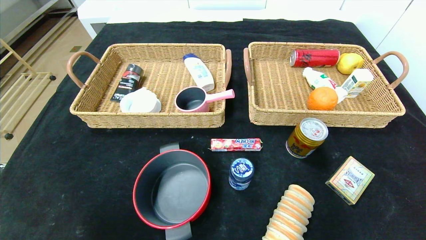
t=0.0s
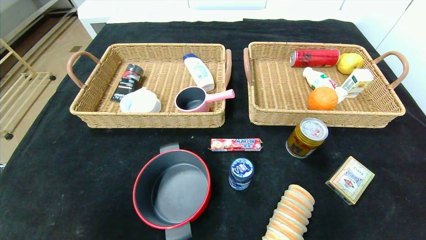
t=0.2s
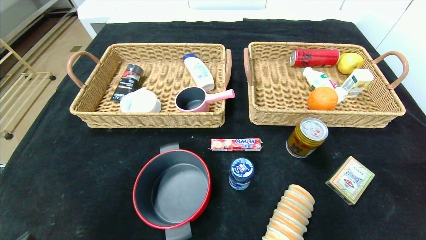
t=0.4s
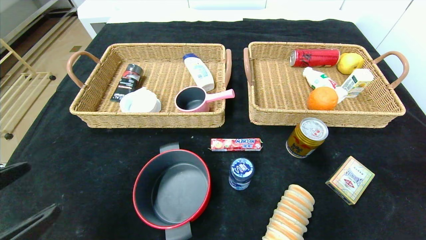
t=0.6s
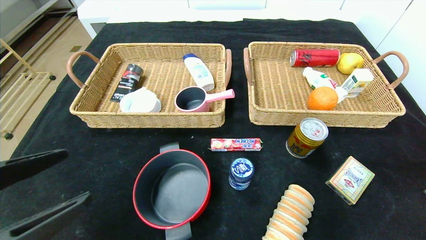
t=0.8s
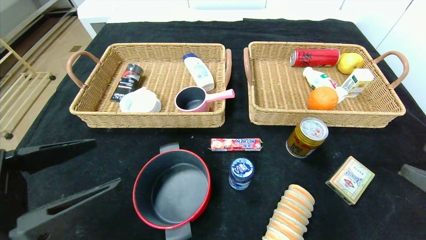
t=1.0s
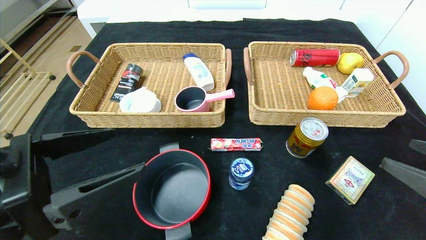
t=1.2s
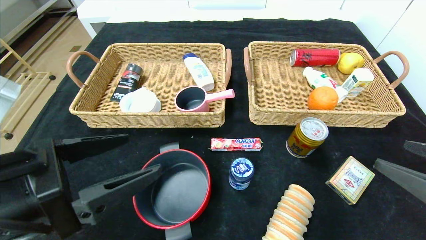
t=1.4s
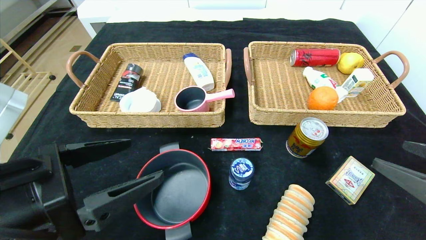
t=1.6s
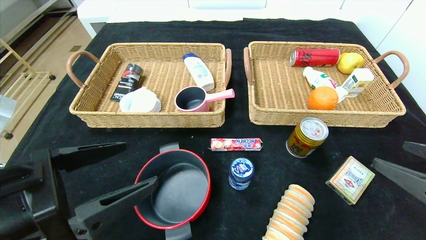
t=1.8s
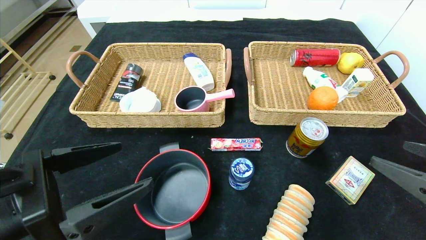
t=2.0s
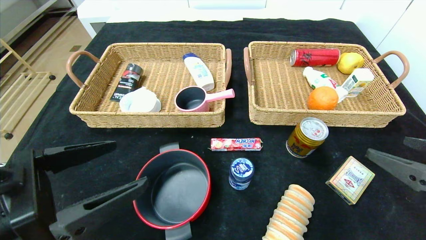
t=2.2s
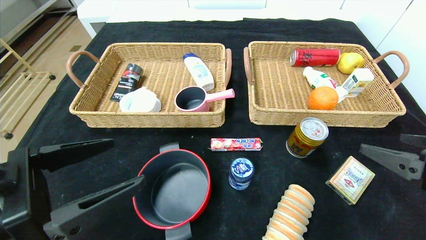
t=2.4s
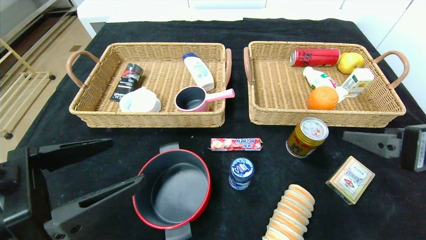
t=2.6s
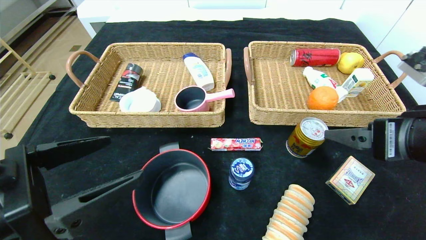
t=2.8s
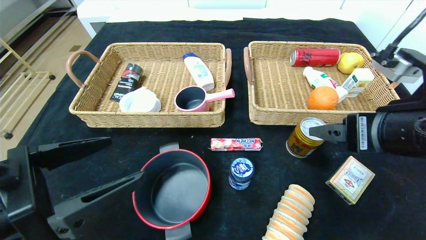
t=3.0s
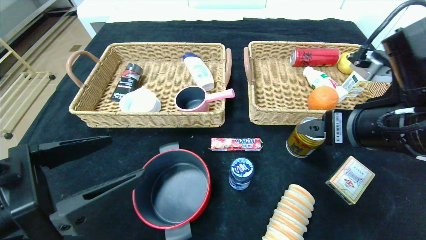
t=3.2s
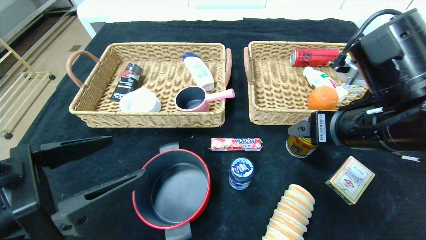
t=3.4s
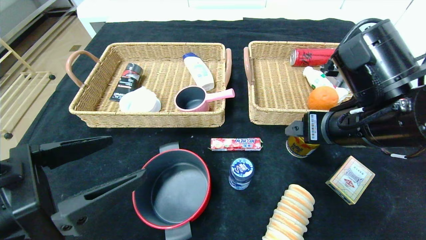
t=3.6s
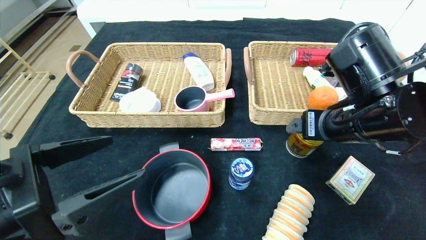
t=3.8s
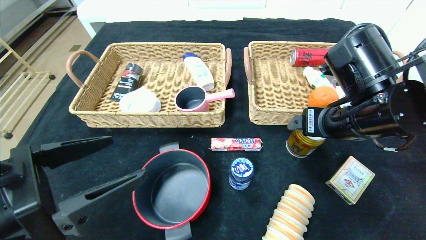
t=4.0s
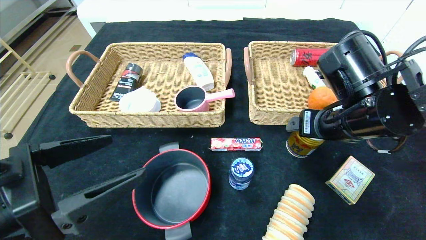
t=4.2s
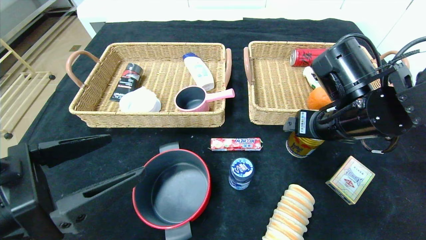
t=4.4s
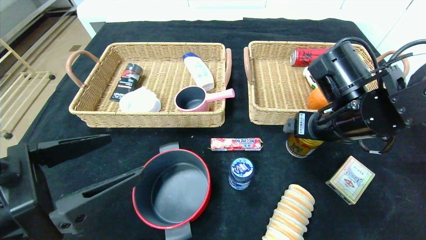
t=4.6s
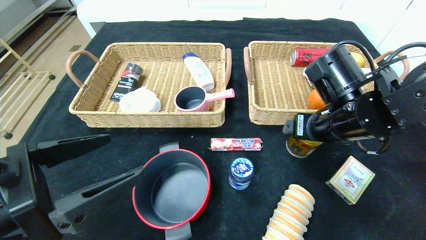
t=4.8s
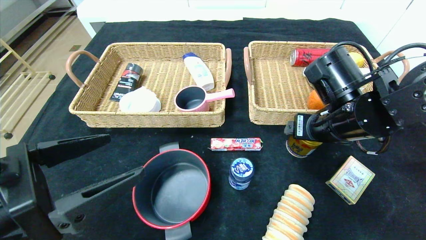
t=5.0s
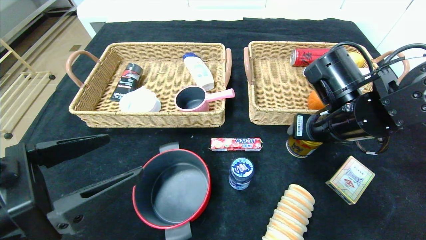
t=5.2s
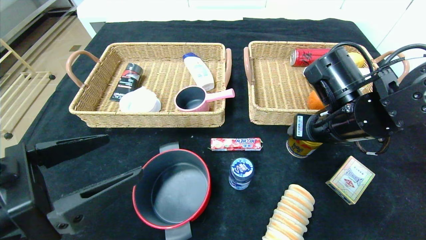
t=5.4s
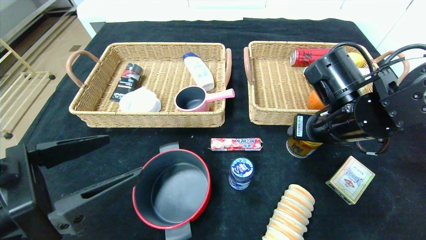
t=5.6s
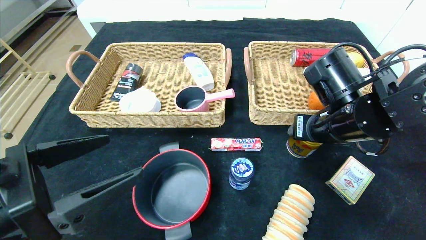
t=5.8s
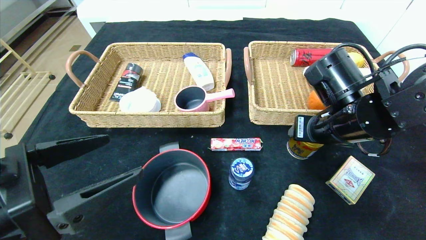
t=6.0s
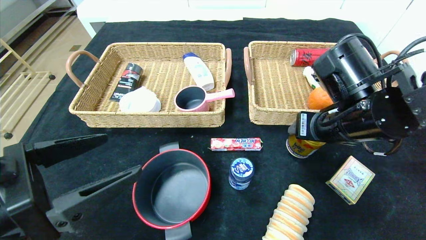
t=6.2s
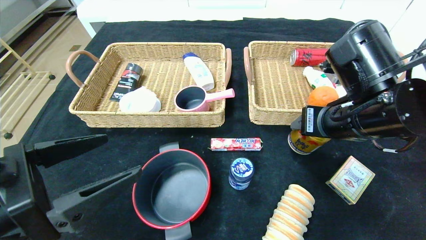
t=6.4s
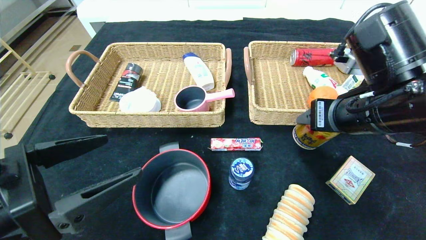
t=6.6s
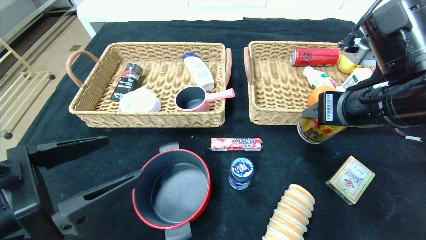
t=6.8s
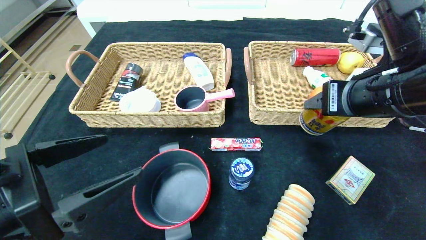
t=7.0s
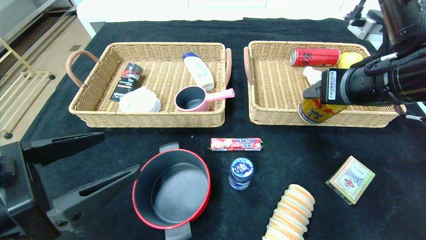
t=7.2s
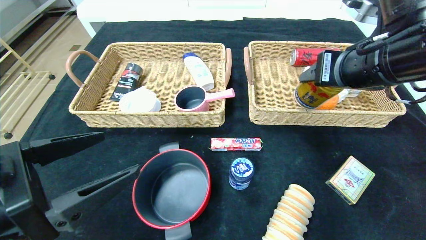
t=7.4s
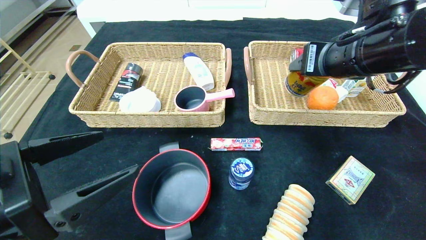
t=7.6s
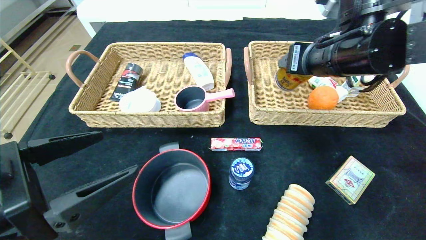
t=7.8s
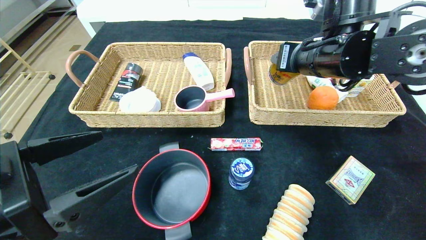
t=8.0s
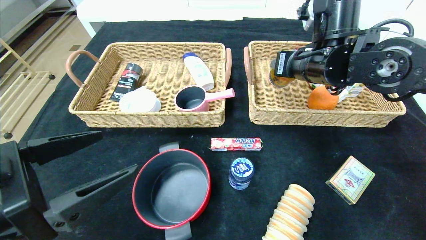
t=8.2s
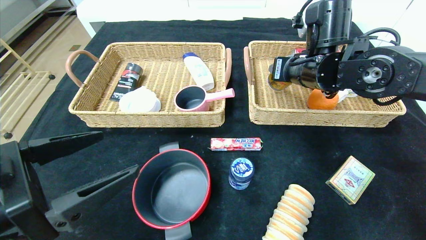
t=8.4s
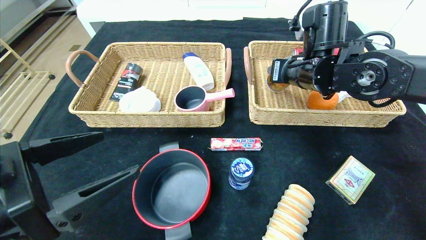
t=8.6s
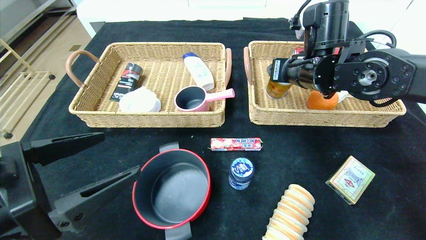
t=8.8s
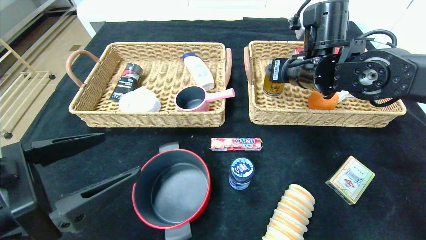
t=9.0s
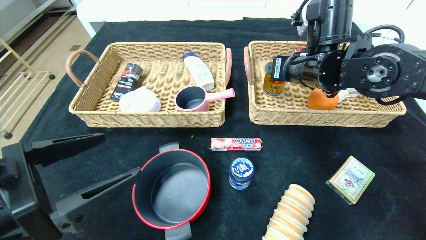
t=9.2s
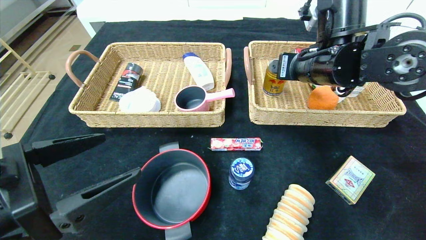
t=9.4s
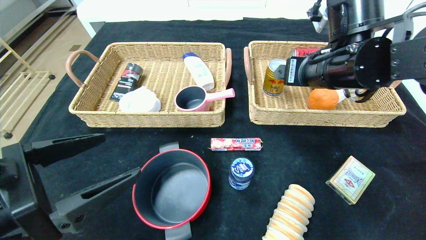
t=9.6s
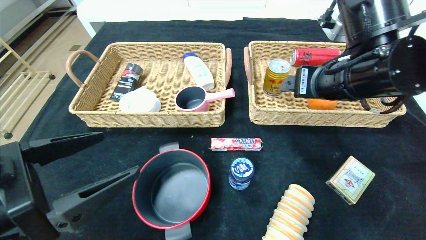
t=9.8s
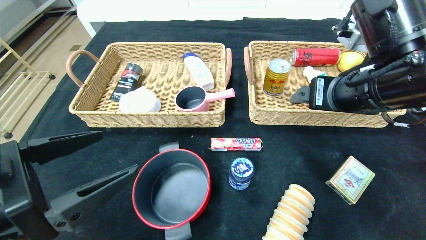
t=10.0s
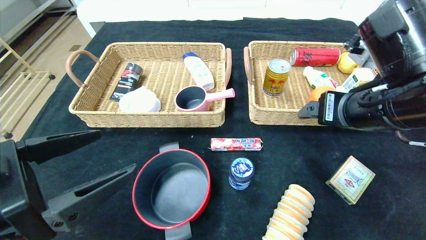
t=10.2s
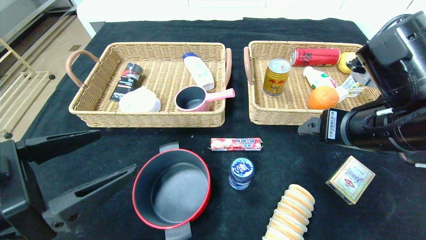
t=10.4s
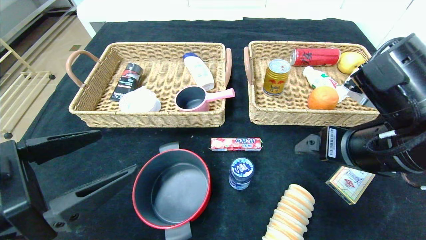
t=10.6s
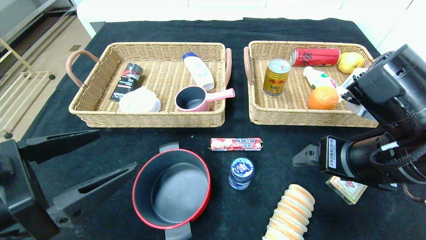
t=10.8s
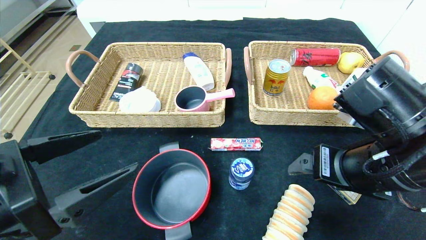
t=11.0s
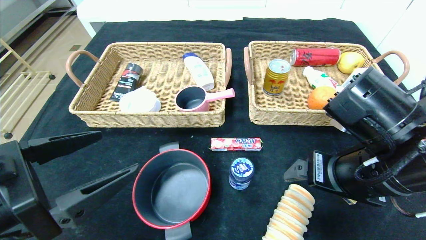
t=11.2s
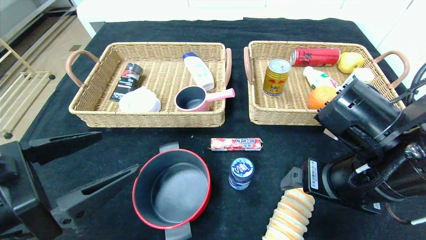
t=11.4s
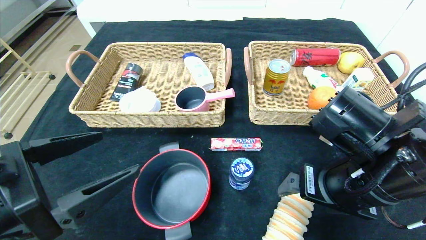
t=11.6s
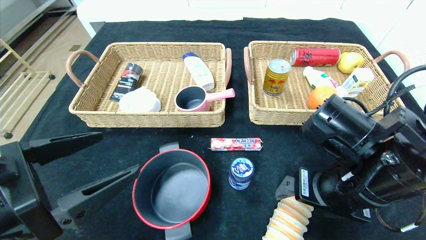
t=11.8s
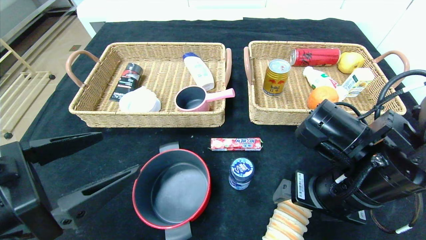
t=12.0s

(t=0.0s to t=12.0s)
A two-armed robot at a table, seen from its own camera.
Step, t=0.0s - t=8.8s: Grasp the Red Bull and put it in the right basket.
t=0.0s - t=1.6s: The left gripper is displaced forward, upward and to the right by some 20 cm; the right gripper travels forward and upward by approximately 15 cm.
t=1.6s - t=3.0s: The right gripper is displaced to the left, forward and upward by approximately 15 cm.
t=3.0s - t=4.4s: The right gripper is displaced forward by about 10 cm.
t=4.4s - t=6.0s: The right gripper closes.
t=6.0s - t=7.6s: The right gripper goes about 10 cm upward.
t=7.6s - t=9.0s: The right gripper is displaced forward by some 10 cm.
t=9.0s - t=10.4s: The right gripper shifts some 15 cm backward.
t=10.4s - t=12.0s: The right gripper shifts roughly 5 cm downward.

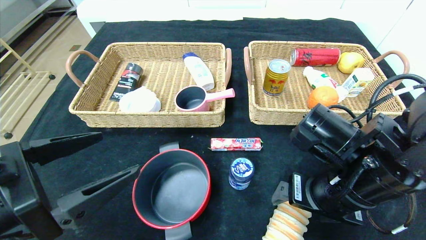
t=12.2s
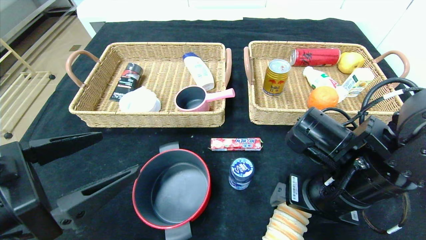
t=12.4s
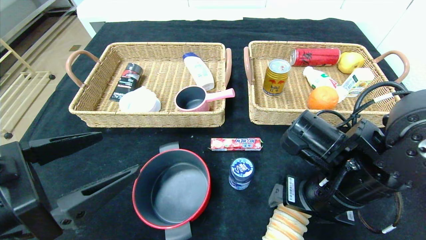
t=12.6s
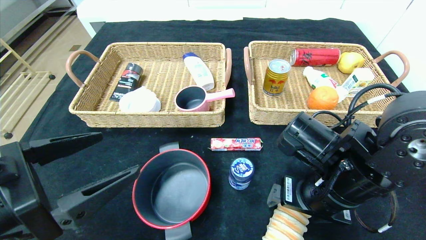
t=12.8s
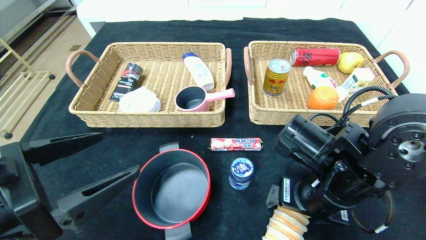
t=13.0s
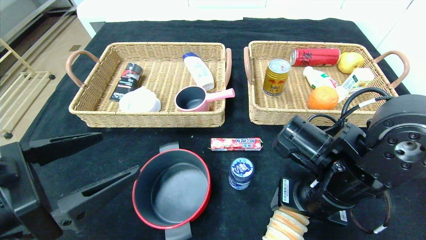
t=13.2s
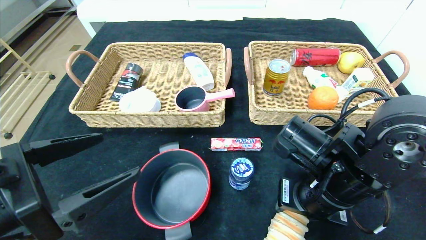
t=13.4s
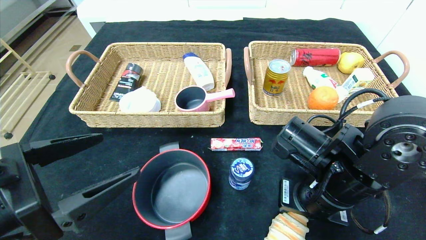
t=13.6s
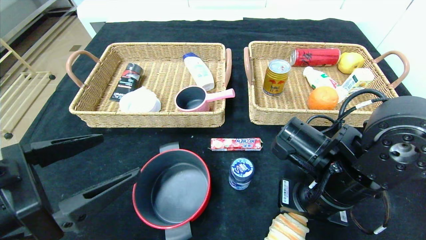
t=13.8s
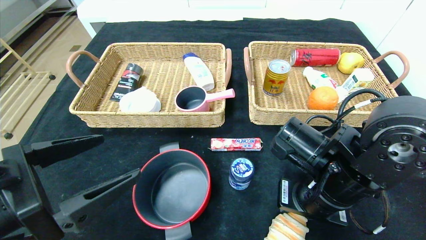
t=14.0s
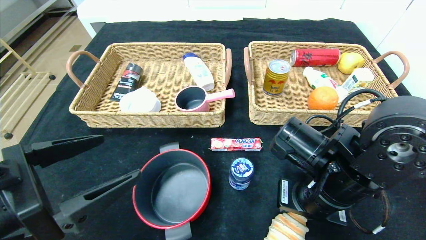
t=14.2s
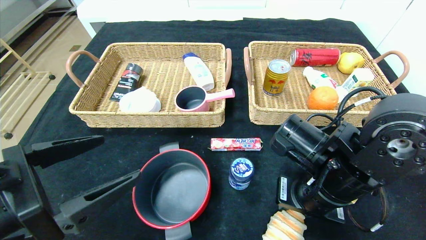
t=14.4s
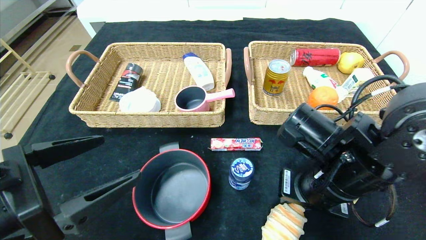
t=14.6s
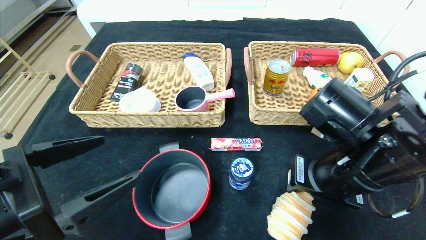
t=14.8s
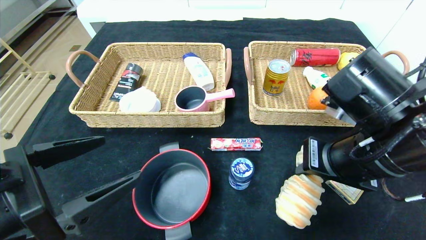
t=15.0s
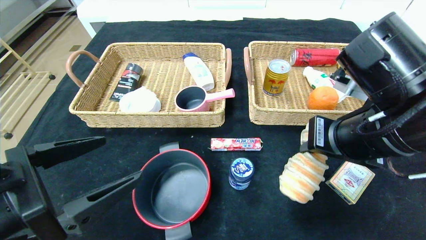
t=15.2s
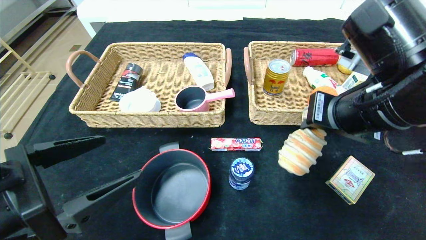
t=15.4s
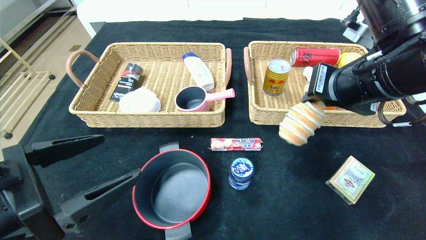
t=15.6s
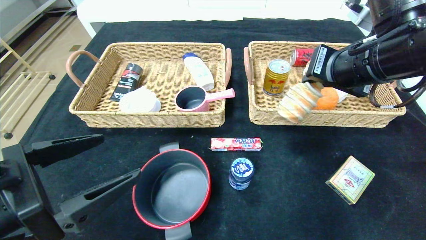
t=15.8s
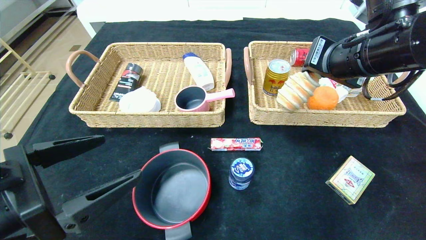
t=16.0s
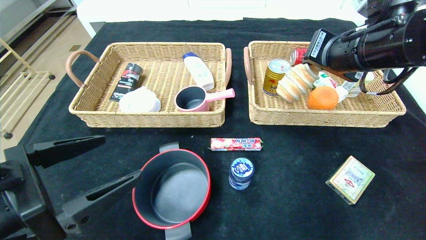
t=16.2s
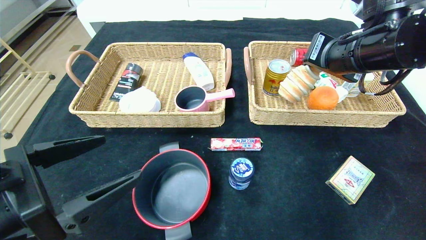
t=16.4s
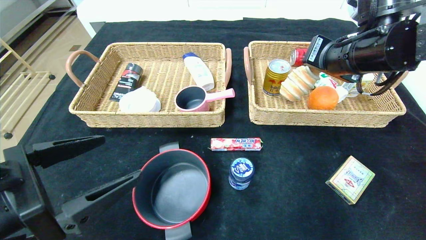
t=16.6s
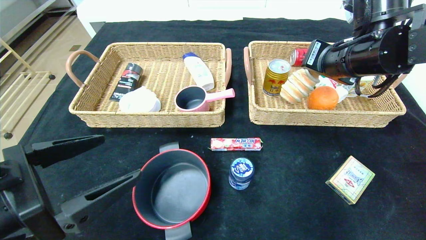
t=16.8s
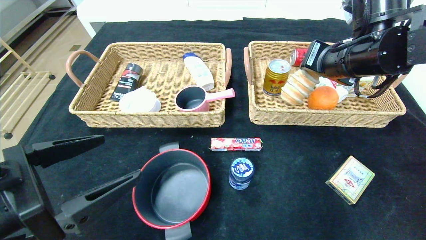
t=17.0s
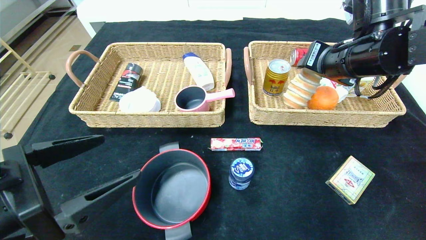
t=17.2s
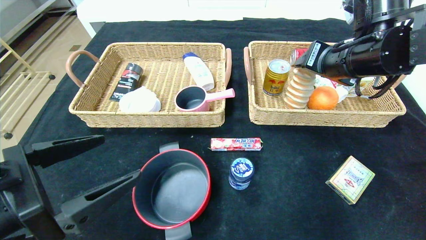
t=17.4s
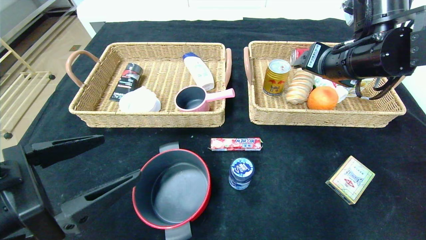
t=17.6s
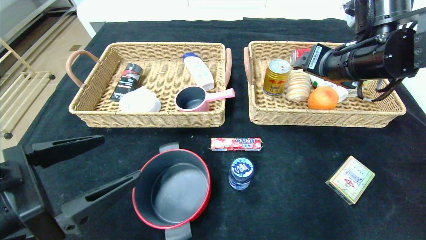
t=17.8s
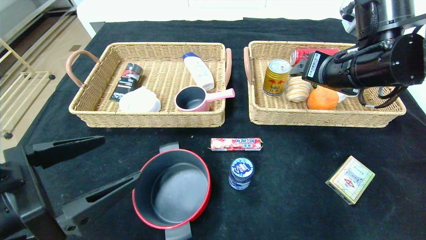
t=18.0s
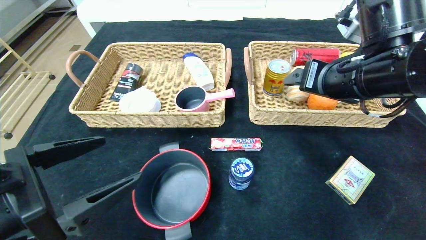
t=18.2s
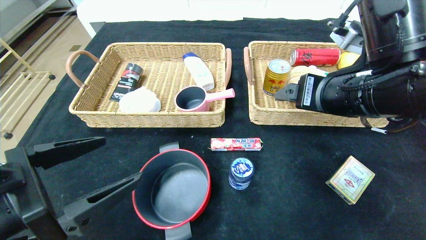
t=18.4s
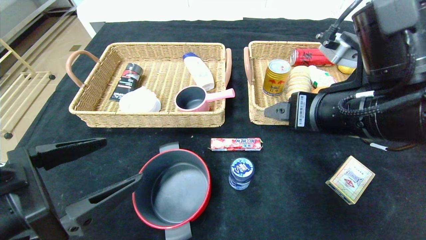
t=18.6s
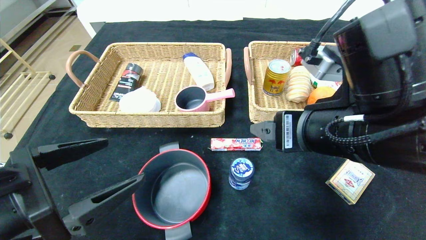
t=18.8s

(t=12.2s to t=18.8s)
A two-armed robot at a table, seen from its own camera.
Step, t=12.2s - t=17.6s: Grasp the long bread and put it in the right basket.
t=12.2s - t=13.8s: The right gripper closes its fingers.
t=13.8s - t=15.4s: The right gripper goes approximately 10 cm upward.
t=15.4s - t=17.2s: The right gripper goes approximately 10 cm forward, and opens.
t=17.2s - t=18.8s: The right gripper goes some 15 cm backward and to the left, and opens.
